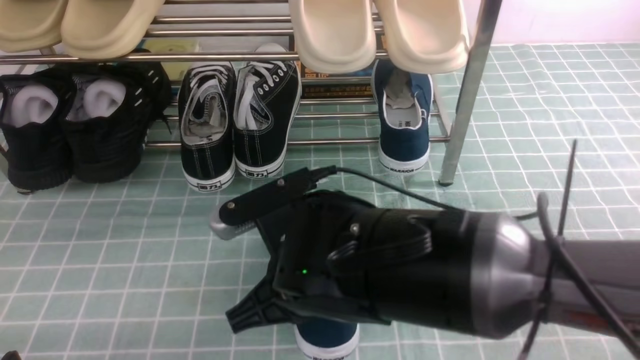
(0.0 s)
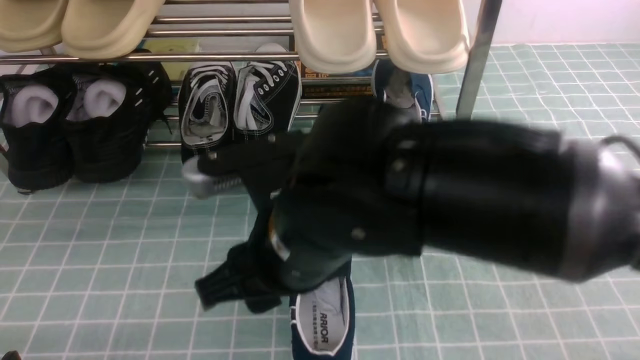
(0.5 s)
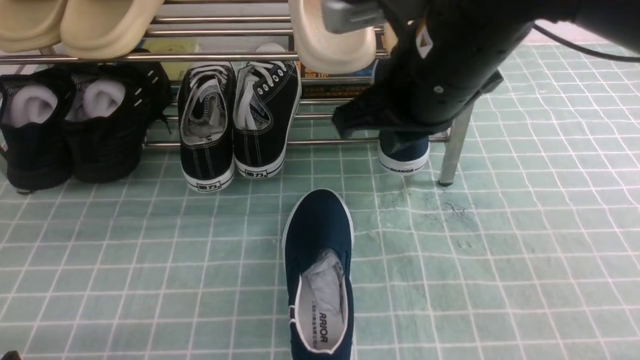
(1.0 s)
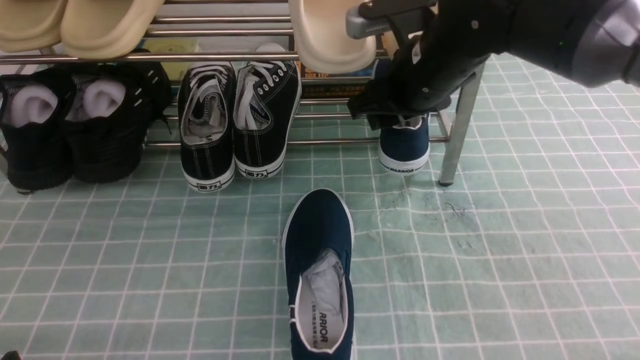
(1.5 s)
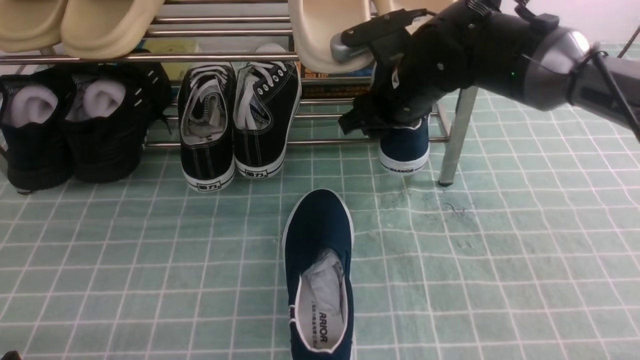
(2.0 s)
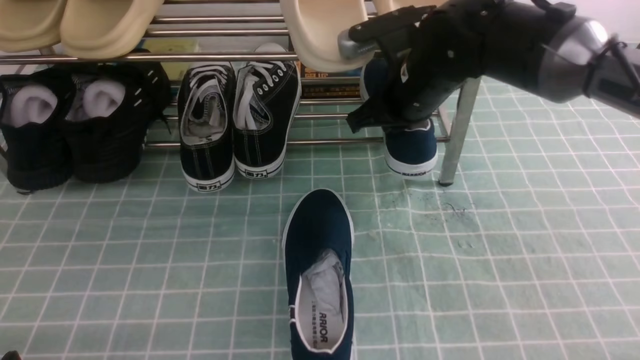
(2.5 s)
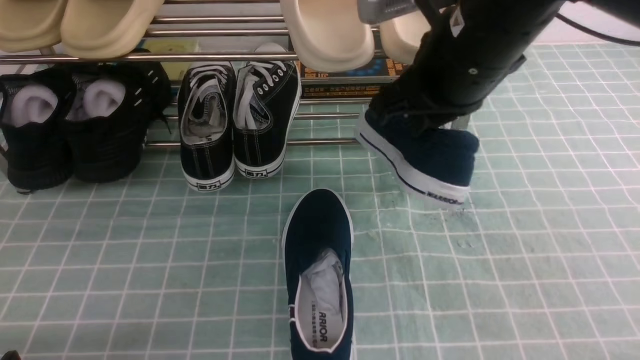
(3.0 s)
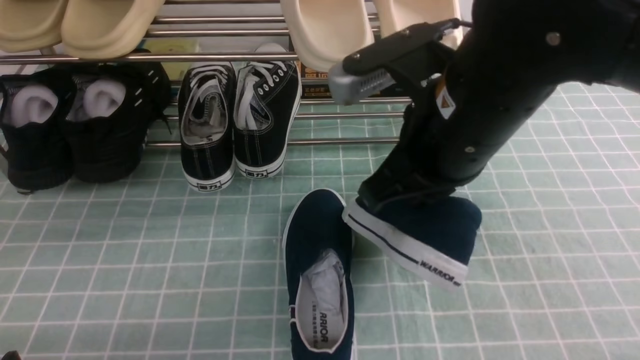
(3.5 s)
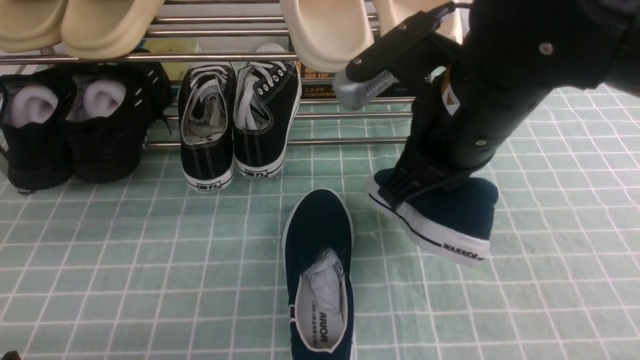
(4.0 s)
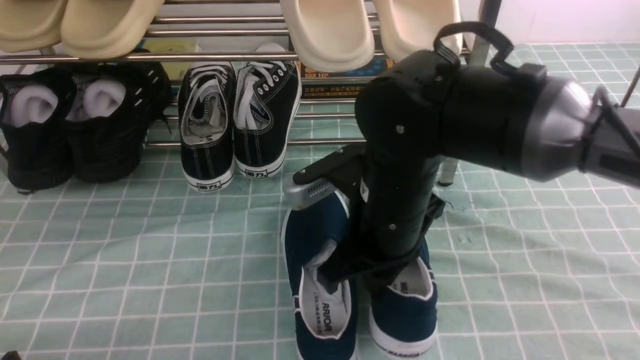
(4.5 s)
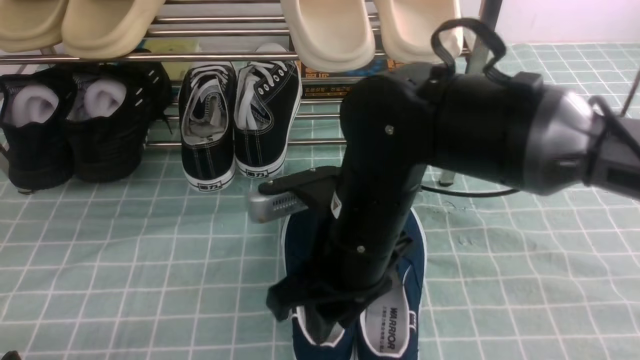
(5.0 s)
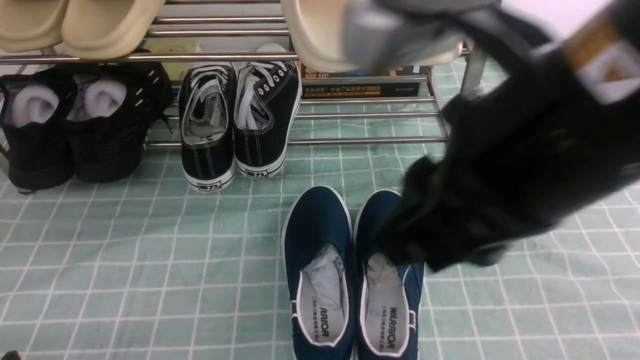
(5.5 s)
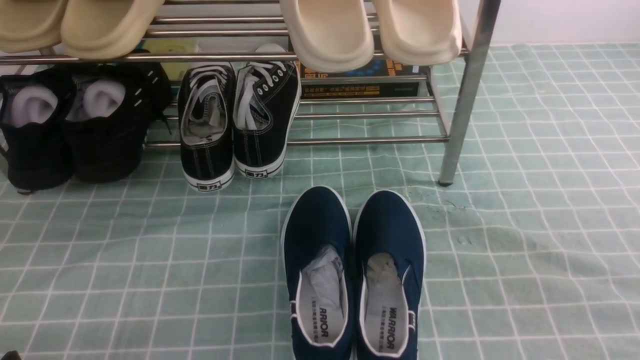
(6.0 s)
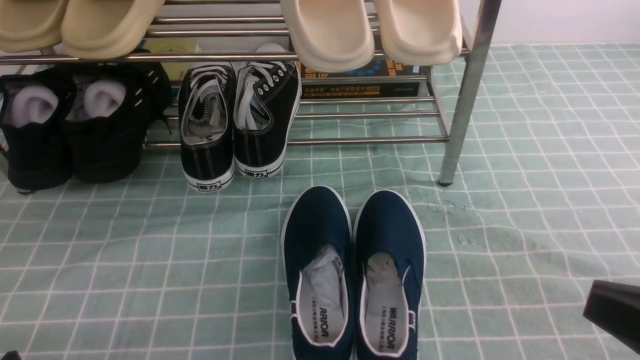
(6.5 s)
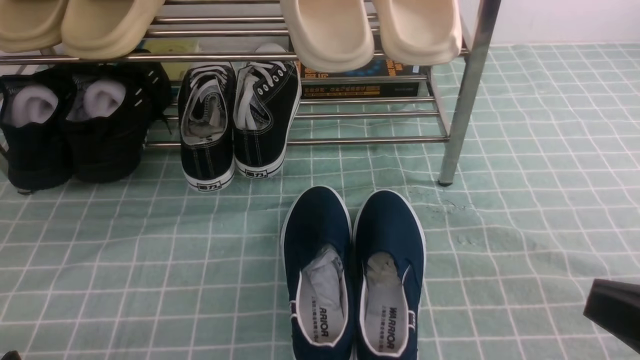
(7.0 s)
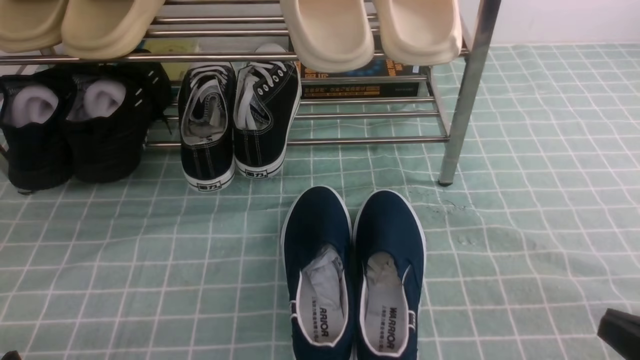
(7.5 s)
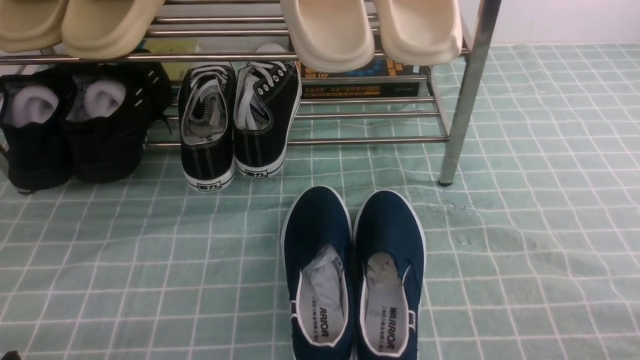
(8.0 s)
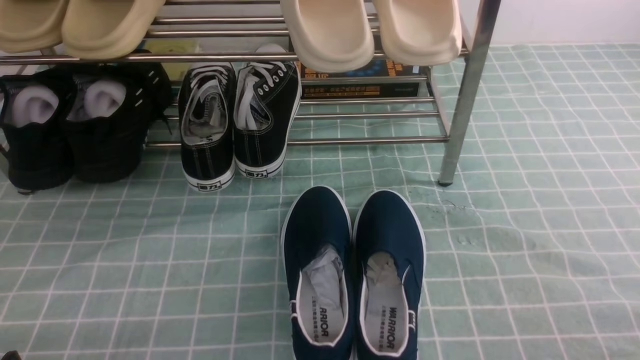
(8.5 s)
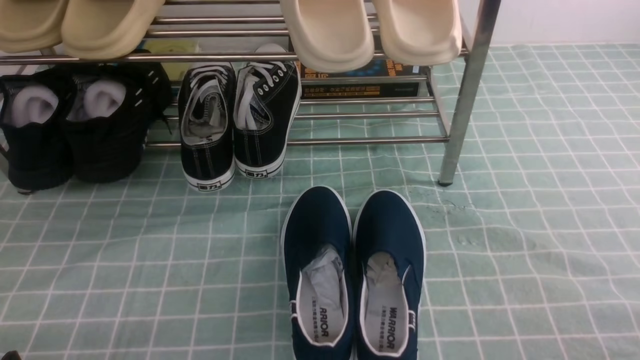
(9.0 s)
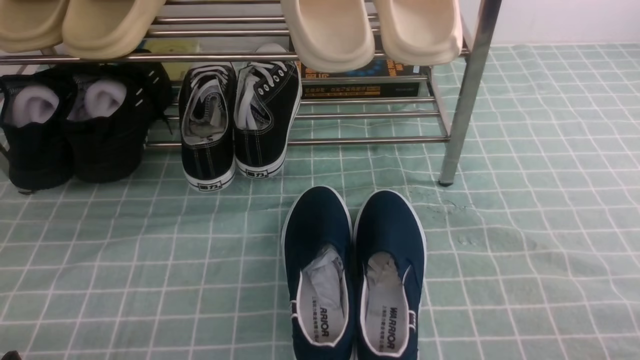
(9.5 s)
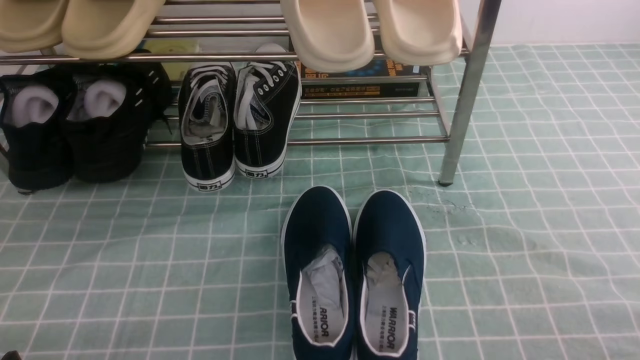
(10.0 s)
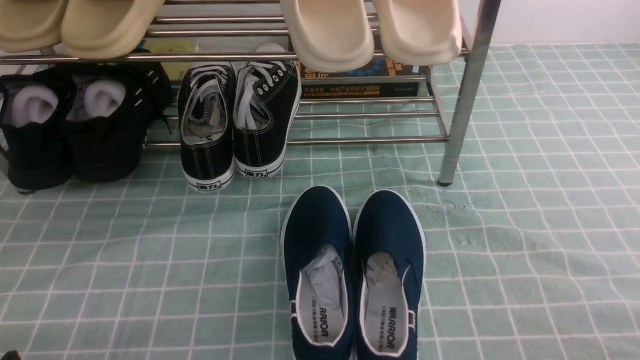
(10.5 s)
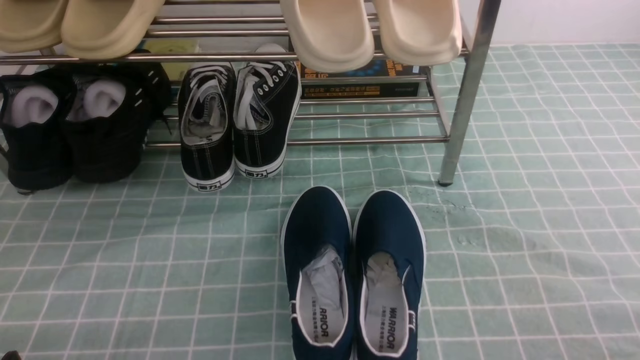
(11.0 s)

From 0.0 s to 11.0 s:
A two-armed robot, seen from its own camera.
Step, from 0.5 s to 2.0 s: use the right arm to clamp a shoe on the right side of the shoe rack.
Step, from 2.5 s to 5.0 s: use the right arm to take out the clamped shoe from the shoe rack and put it down.
From 0.0 s to 2.0 s: The right gripper heads forward and to the right, covering about 25 cm, and opens.
From 2.0 s to 3.5 s: The right gripper shifts approximately 20 cm backward and upward, and closes its fingers.
From 3.5 s to 5.5 s: The right gripper heads backward and upward, covering approximately 15 cm, and opens up.
From 5.5 s to 7.5 s: The right gripper travels downward and to the right by roughly 25 cm, and closes its fingers.
From 7.5 s to 9.0 s: The right gripper moves downward, roughly 5 cm.
From 9.0 s to 11.0 s: Both grippers stay about where they are.
